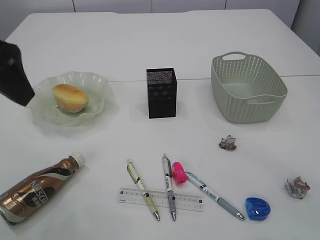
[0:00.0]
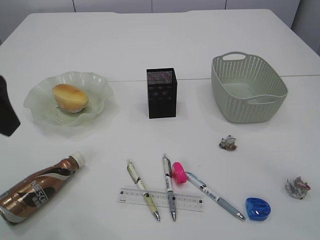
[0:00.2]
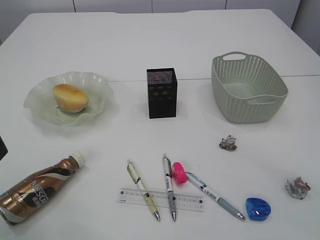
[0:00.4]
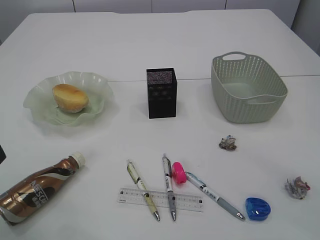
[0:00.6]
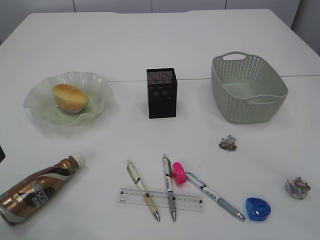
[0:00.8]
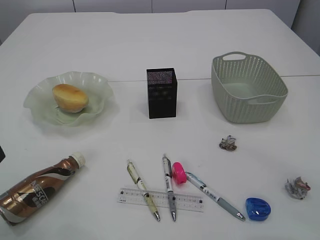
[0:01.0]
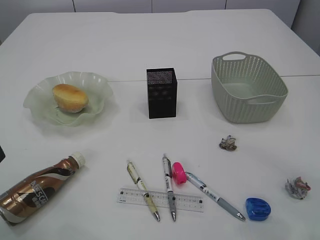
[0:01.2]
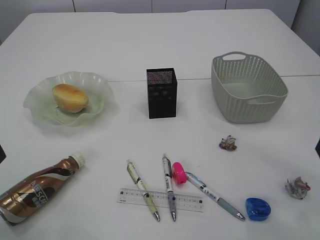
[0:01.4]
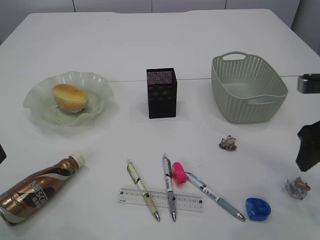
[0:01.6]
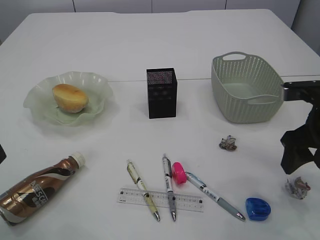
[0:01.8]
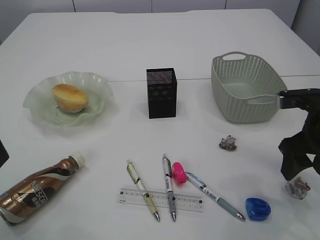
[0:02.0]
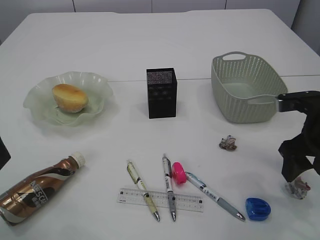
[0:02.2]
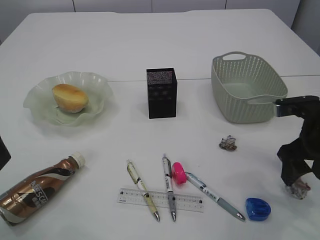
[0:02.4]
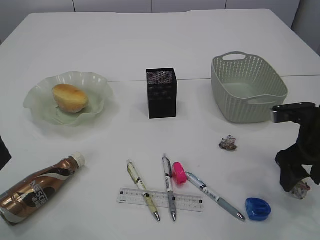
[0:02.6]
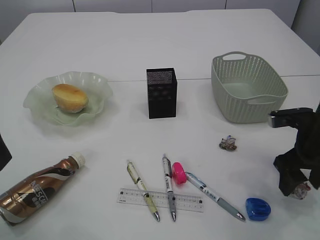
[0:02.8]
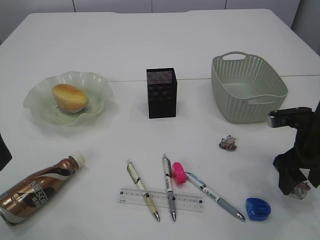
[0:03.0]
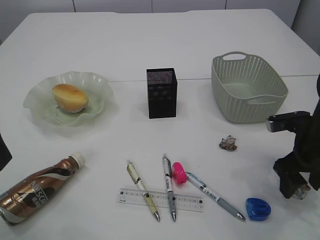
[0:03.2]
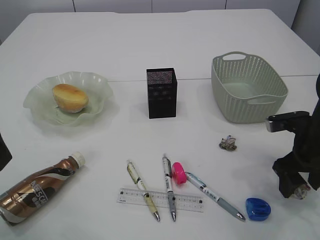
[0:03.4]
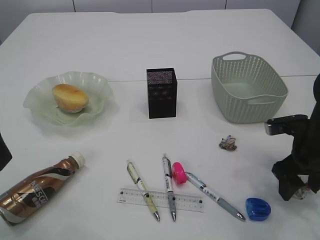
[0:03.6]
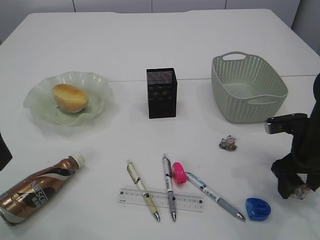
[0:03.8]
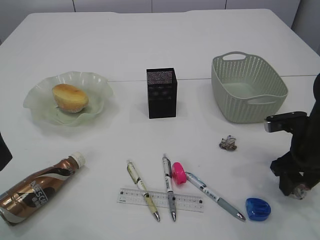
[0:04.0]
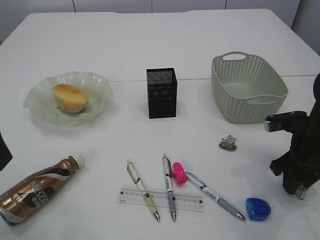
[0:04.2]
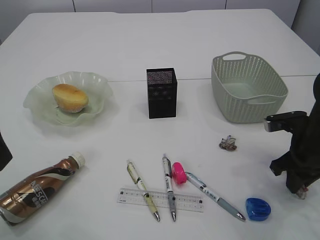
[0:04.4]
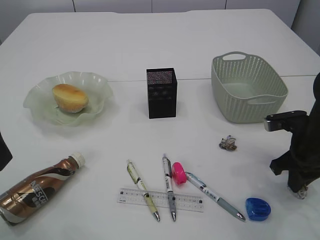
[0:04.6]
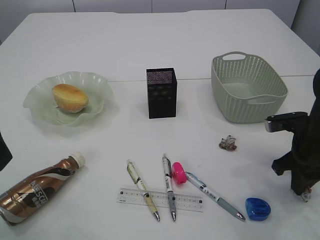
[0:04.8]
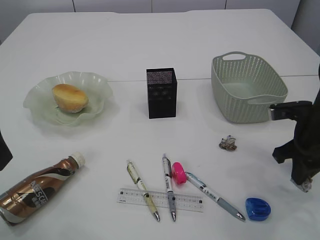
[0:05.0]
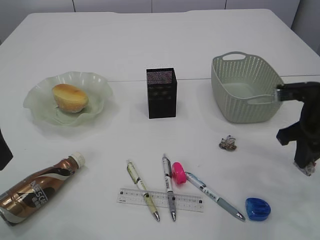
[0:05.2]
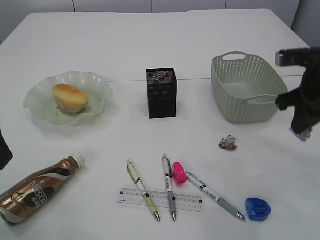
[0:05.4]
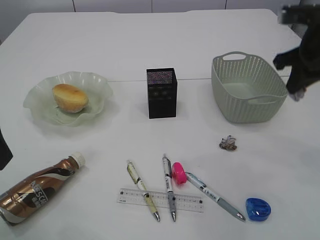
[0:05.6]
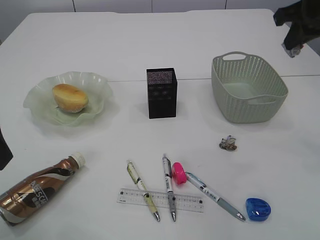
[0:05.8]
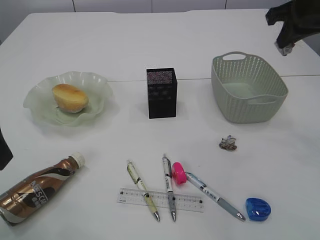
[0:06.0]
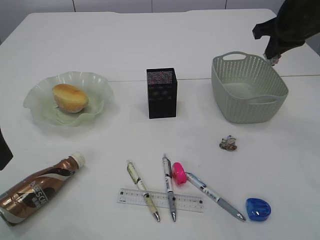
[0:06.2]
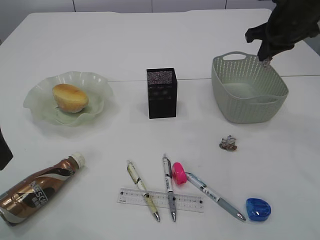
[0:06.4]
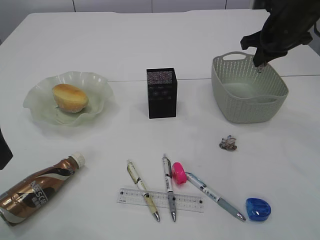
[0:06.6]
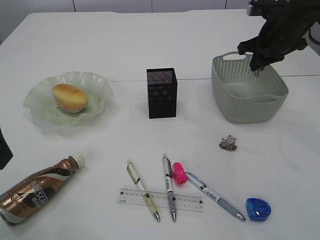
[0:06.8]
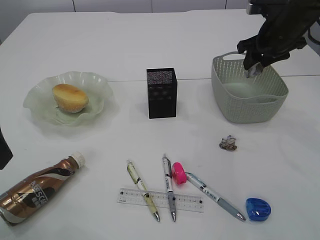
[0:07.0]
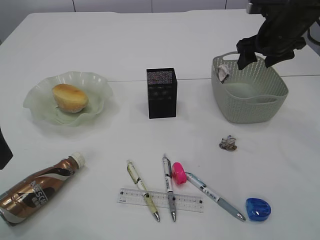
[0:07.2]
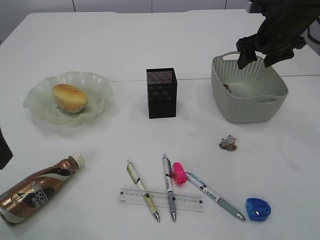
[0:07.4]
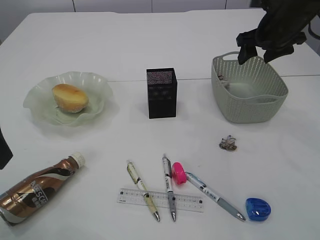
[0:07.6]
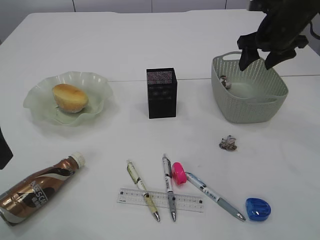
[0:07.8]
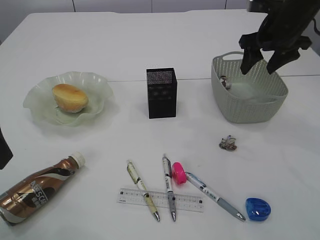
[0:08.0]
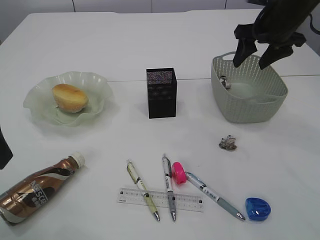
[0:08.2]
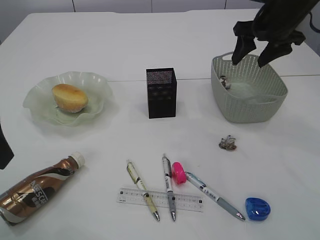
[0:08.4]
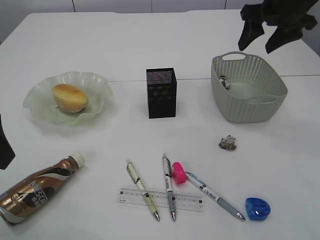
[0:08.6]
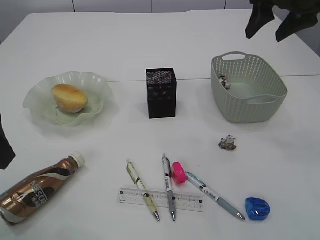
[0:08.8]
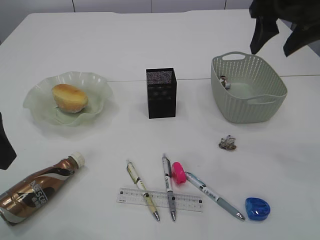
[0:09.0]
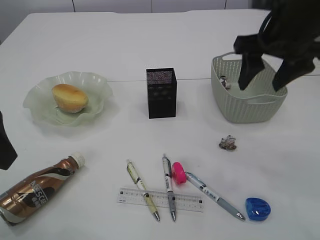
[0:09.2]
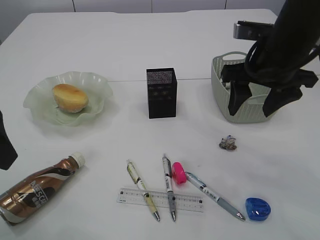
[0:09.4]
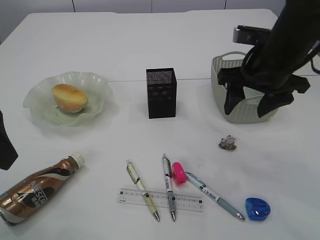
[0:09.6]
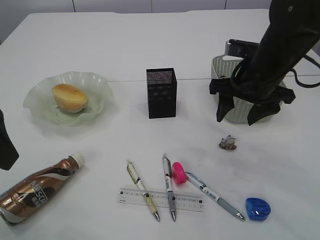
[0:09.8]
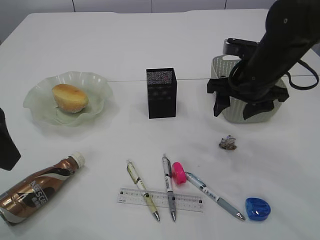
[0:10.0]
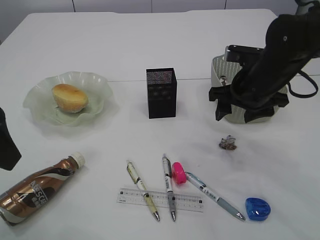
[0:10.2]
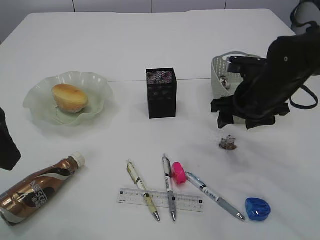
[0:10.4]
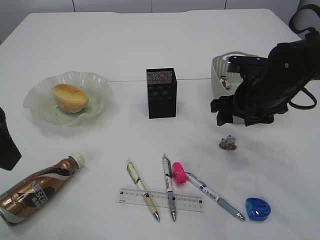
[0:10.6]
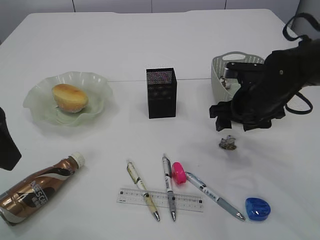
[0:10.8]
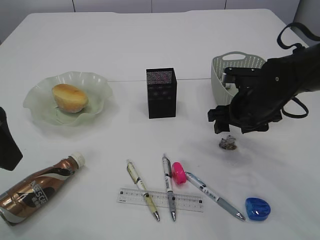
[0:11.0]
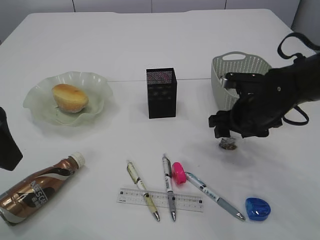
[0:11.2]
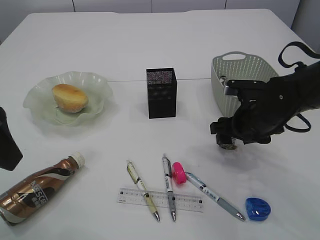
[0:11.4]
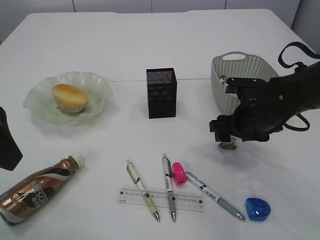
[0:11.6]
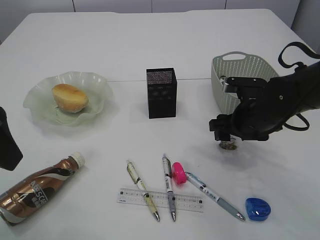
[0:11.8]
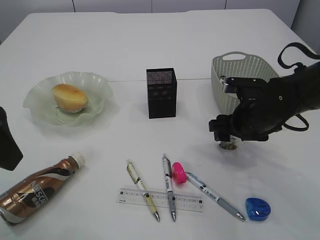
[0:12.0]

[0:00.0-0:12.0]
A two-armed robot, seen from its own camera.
Step, 0:00.0 to 0:05.4: Pick up the waste paper.
Step, 0:05.6 to 0:07.6: Place the waste paper in the basket.
0:00.0 to 0:01.6: The right gripper shifts some 15 cm downward and forward, while the left gripper shifts by about 5 cm.
0:01.6 to 0:03.0: The right gripper goes about 10 cm downward.
0:03.0 to 0:04.4: The right gripper closes its fingers.
0:04.4 to 0:06.0: The right gripper heads upward and forward, covering roughly 25 cm.
0:06.0 to 0:07.6: The right gripper is displaced forward and downward by approximately 10 cm, and opens its fingers.
0:07.6 to 0:09.0: The right gripper travels backward and upward by some 15 cm.
0:09.0 to 0:10.4: The right gripper moves downward, approximately 15 cm.
0:10.4 to 0:12.0: The right gripper travels downward by about 5 cm.

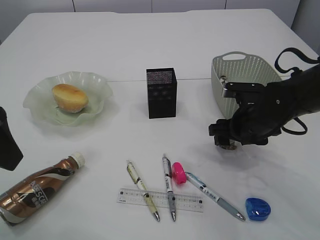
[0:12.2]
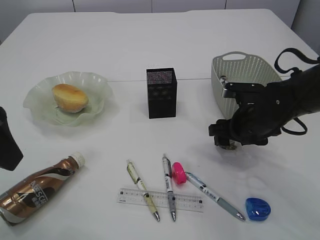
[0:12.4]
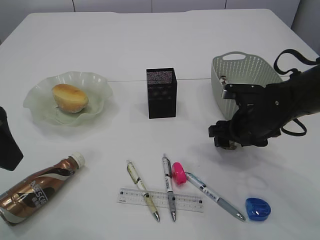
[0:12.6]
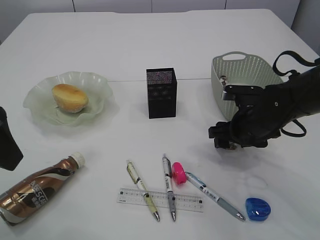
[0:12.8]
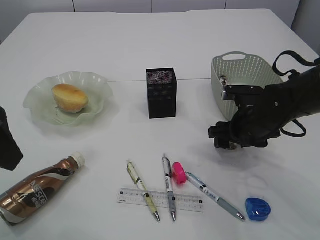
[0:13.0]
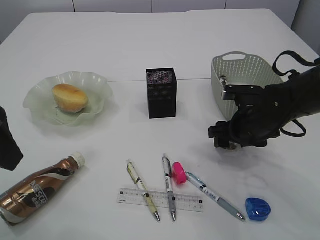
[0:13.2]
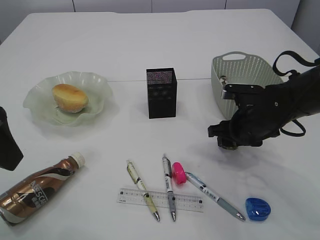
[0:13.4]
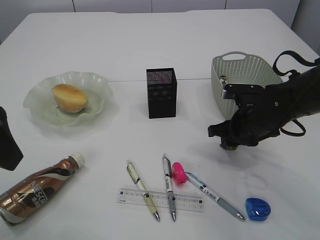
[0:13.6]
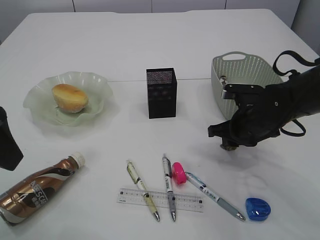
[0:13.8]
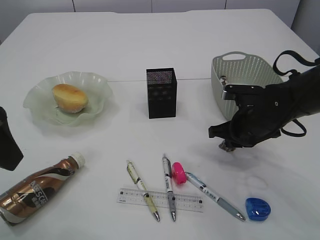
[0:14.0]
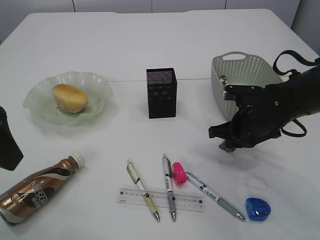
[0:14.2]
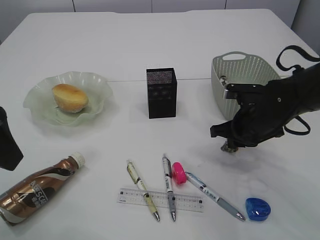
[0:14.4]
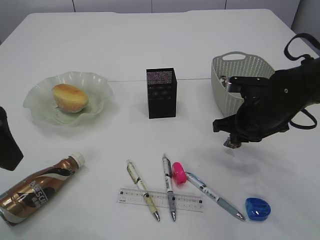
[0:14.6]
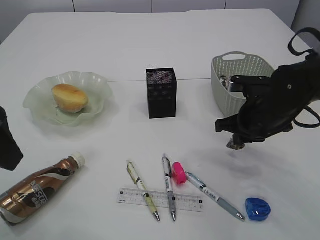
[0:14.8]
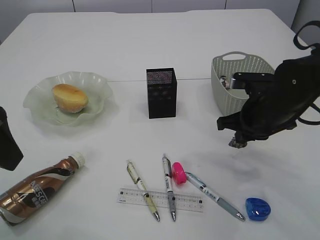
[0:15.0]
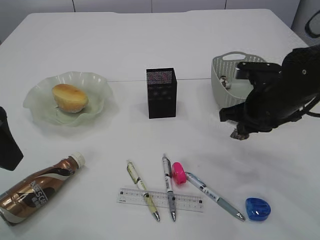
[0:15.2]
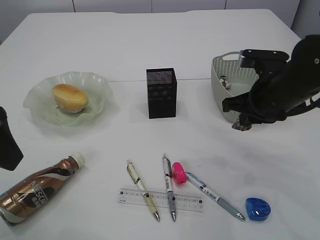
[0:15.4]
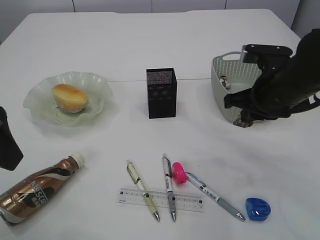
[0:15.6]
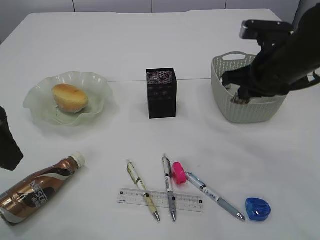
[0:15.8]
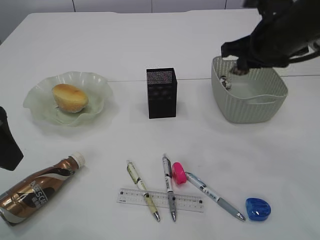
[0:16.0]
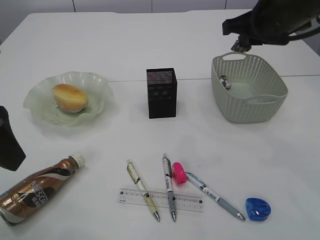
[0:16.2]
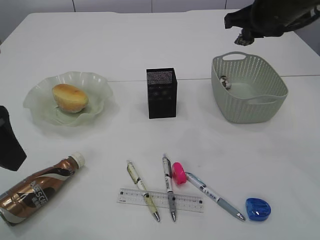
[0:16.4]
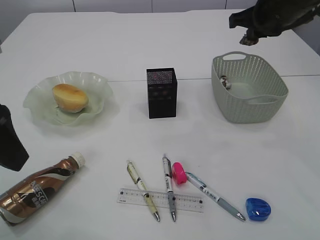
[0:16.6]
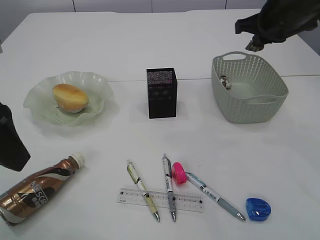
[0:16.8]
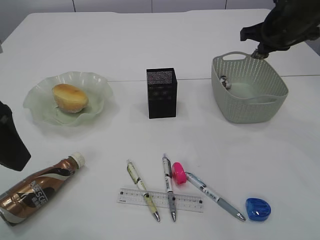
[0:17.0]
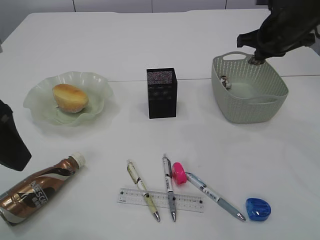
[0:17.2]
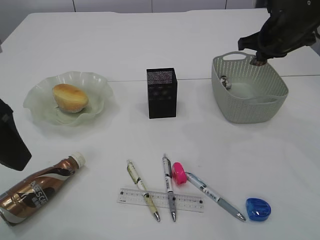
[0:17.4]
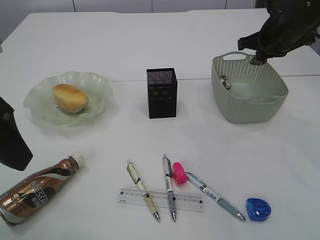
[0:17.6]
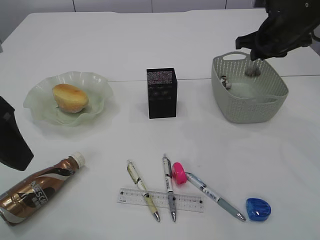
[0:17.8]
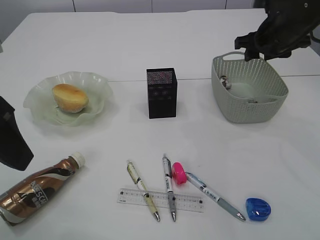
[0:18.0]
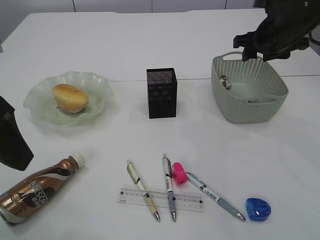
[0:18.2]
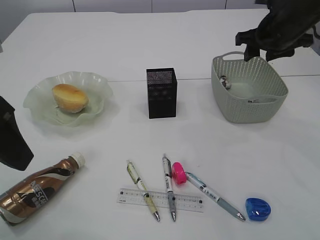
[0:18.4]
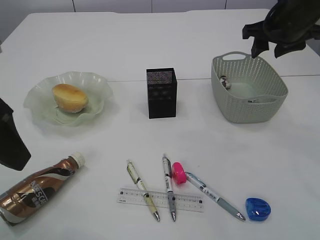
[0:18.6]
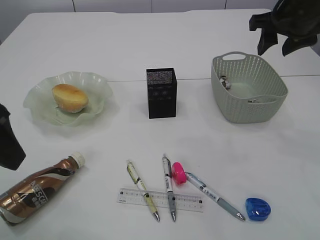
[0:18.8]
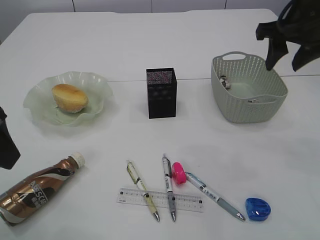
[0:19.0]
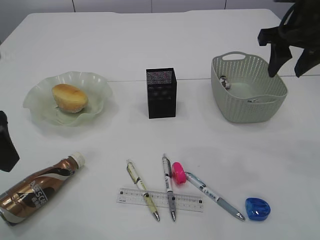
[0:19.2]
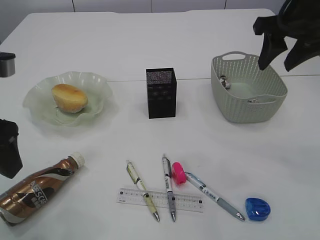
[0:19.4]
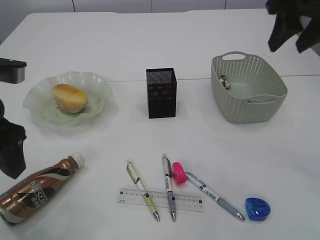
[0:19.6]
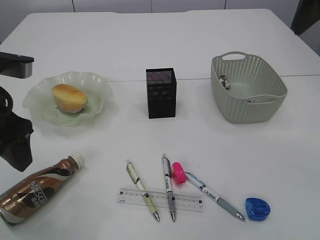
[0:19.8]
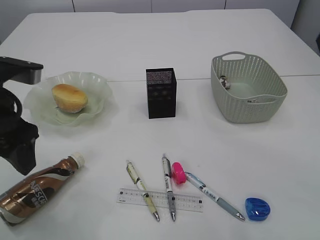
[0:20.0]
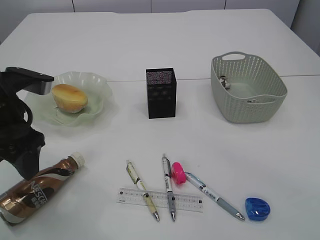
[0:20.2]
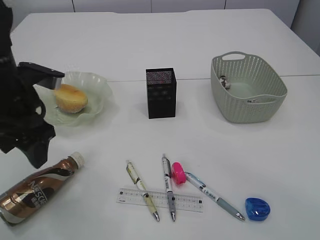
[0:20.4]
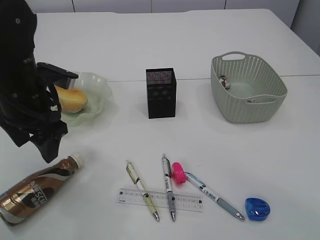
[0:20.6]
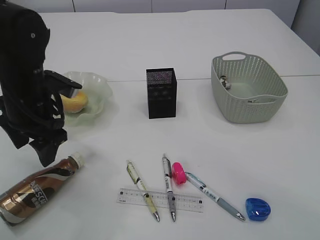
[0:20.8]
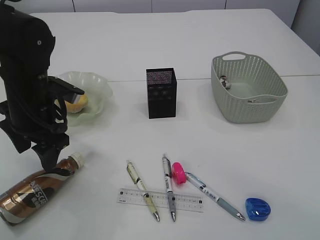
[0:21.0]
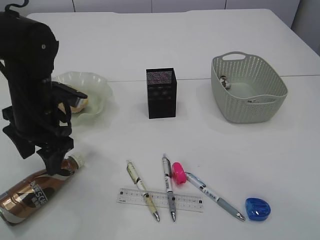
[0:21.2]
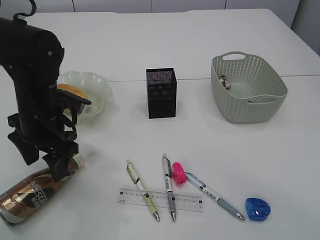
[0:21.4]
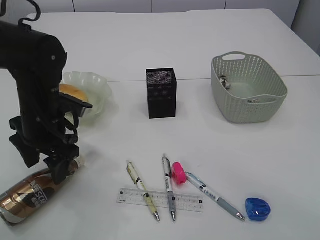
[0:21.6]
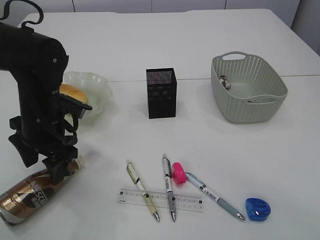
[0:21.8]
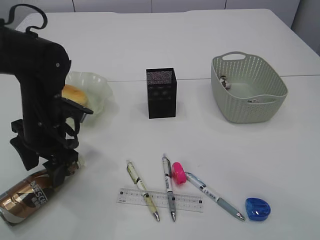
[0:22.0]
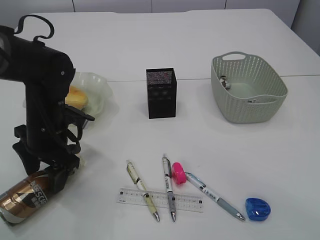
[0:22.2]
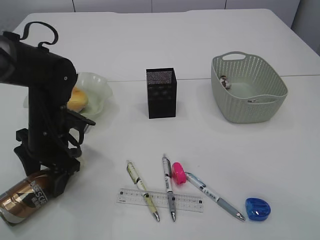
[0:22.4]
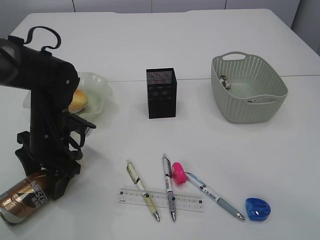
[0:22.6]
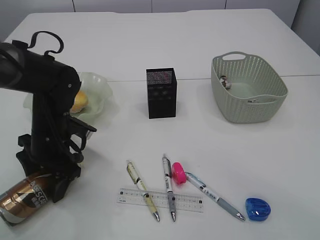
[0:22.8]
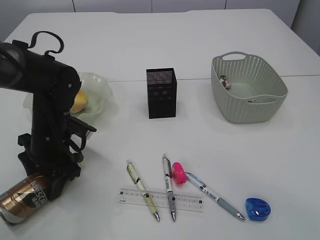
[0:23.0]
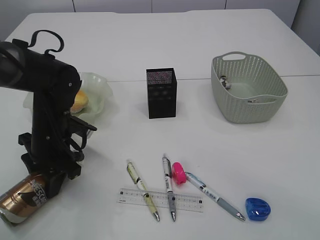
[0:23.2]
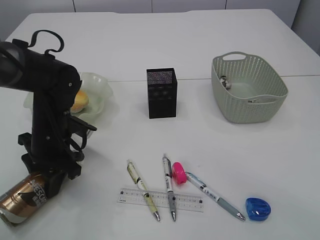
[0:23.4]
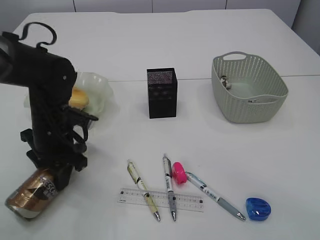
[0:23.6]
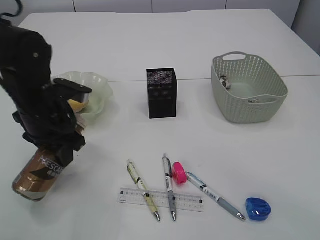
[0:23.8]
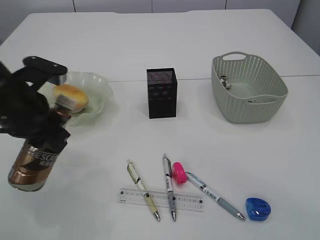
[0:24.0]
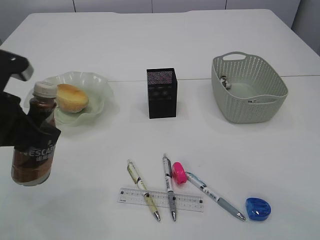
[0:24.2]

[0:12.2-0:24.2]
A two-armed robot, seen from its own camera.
Step, 0:12.2 to 0:15.2: Pick up the waste paper.
Step, 0:15.4 to 0:18.8: Place the waste paper in the basket.
Step, 0:19.0 to 0:23.8: Pick up the bottle with the left arm.
0:12.2 to 0:13.8: The right gripper closes its fingers.
0:13.8 to 0:15.2: The right gripper heads upward, covering approximately 5 cm.
0:15.2 to 0:16.6: The right gripper goes roughly 15 cm upward and forward.
0:16.6 to 0:18.2: The right gripper goes roughly 5 cm downward, and opens up.
0:18.2 to 0:19.8: The right gripper travels upward and backward by about 20 cm; the left gripper ends up about 5 cm from where it was.
0:19.8 to 0:21.2: The left gripper shifts approximately 10 cm downward and forward. The right gripper goes some 15 cm backward.
0:21.2 to 0:22.6: The left gripper moves downward, approximately 5 cm.
0:22.6 to 0:24.2: The left gripper moves upward and backward, some 15 cm, and closes.
